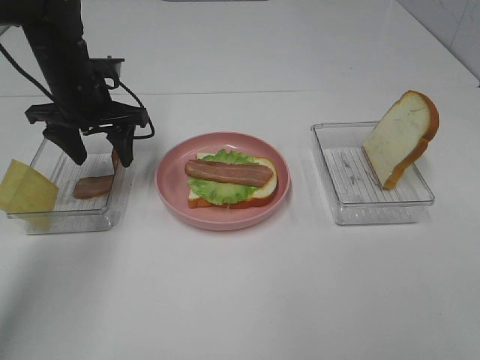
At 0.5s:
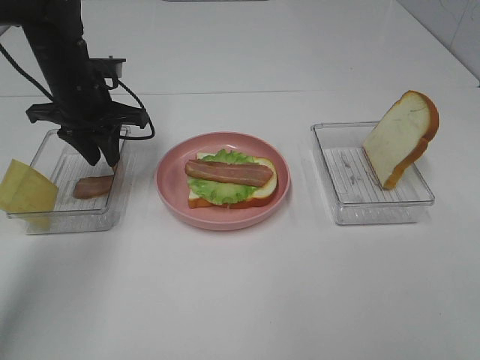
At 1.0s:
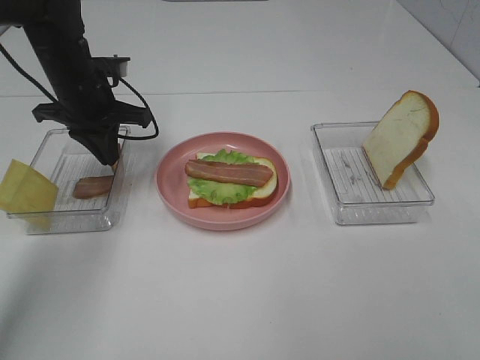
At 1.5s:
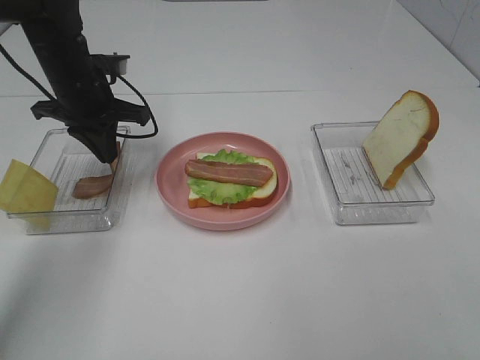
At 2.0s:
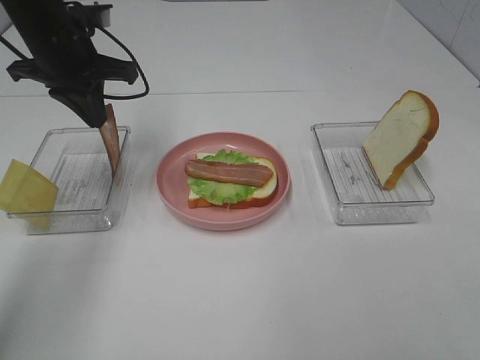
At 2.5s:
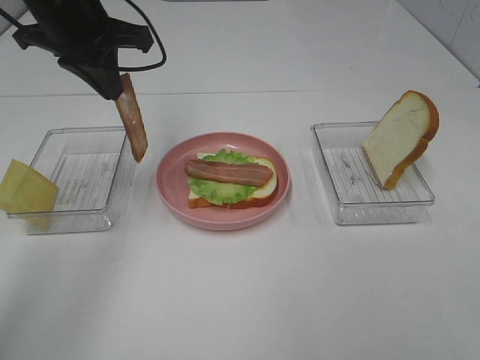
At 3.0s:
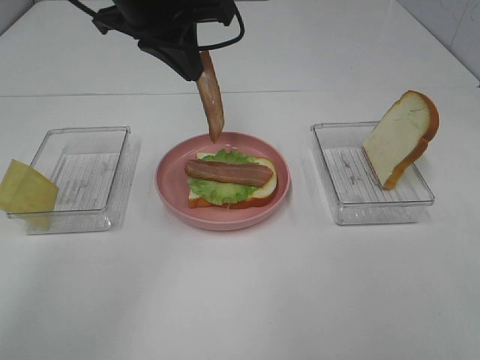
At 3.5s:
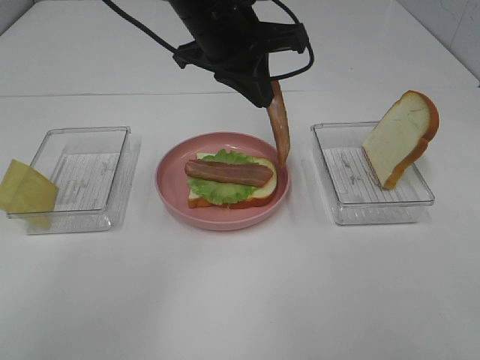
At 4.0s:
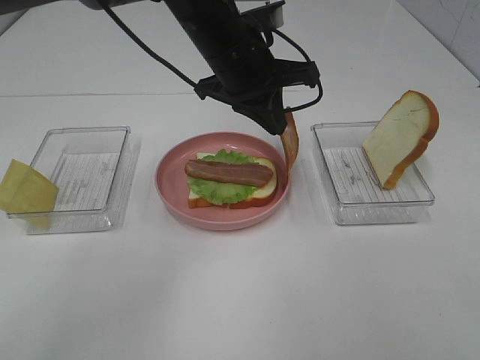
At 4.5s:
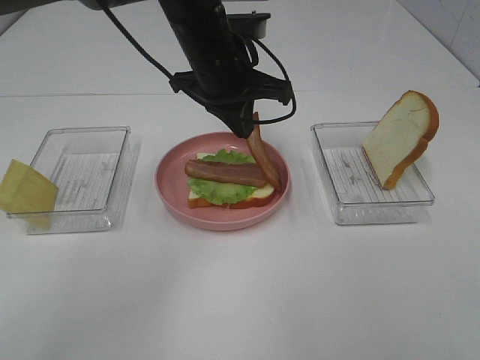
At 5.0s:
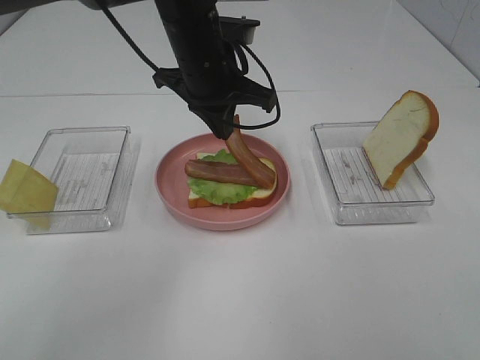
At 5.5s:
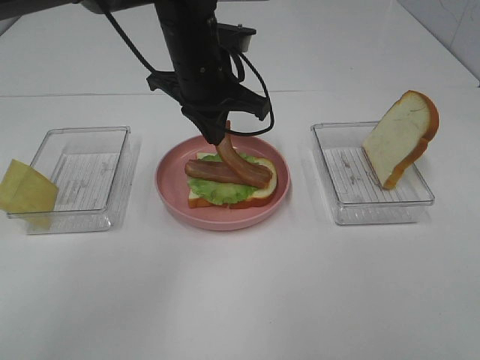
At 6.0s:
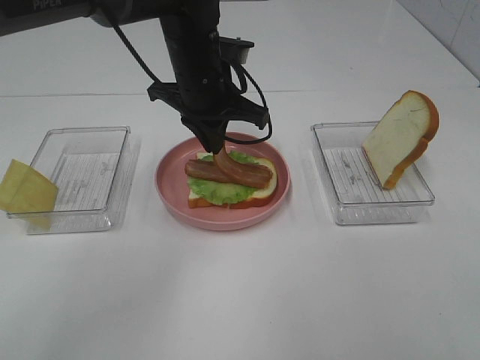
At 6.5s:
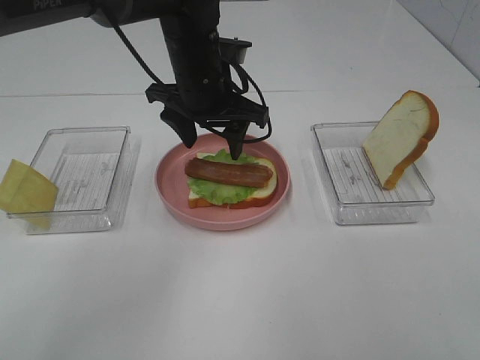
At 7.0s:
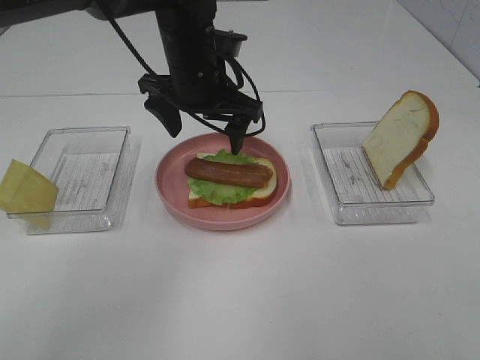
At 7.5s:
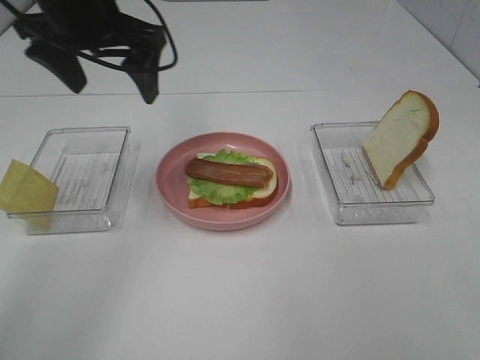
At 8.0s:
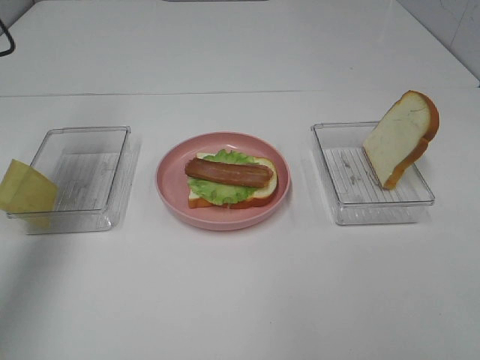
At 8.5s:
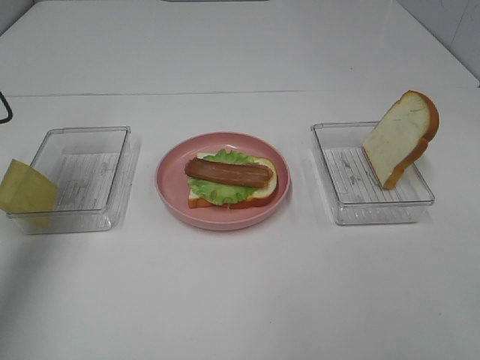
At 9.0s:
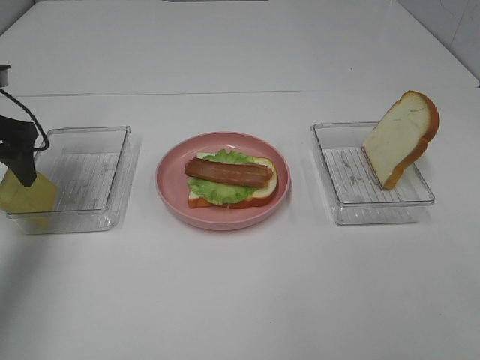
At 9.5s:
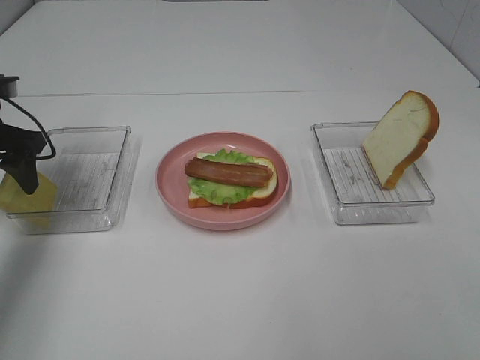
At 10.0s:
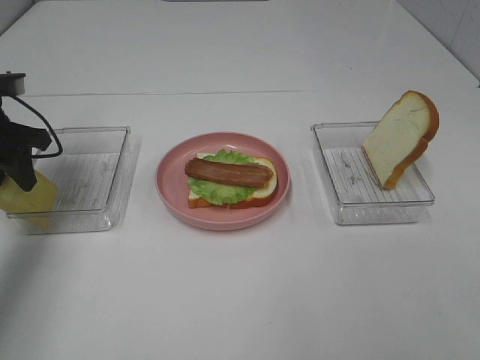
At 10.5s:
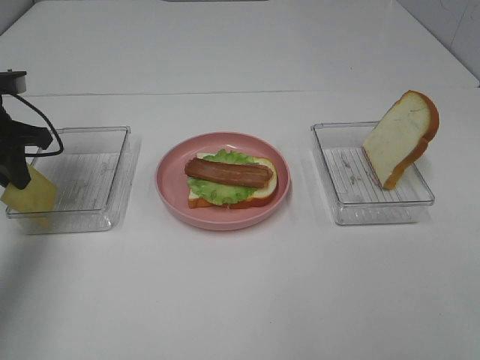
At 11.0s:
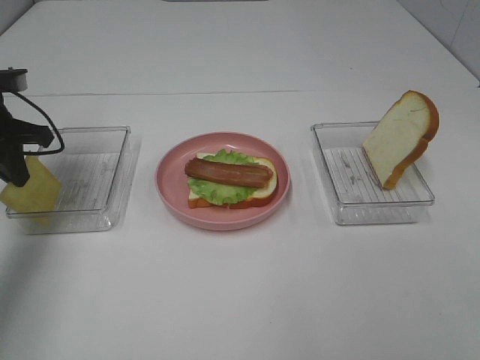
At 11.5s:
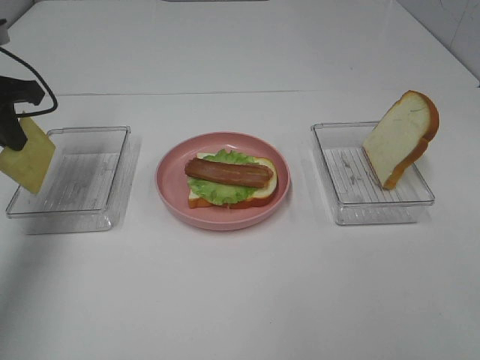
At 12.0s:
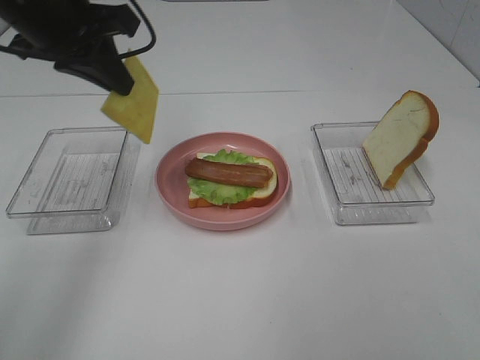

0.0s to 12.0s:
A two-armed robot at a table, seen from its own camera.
Task of the whole recording: Make sandwiches.
Step, 1.5s to 6.0s: Left hand:place bacon on bacon.
Step, 6.5s to 10.5s: Left hand:grab the cheese slice.
0.0s to 2.0s: The left gripper travels upward by about 5 cm, and closes.
2.0s to 4.0s: The left gripper shifts approximately 20 cm to the right.
6.0s to 8.0s: The left gripper is displaced to the left and upward by approximately 30 cm, and opens up.
8.0s to 10.0s: The left gripper shifts about 15 cm downward, and closes.
10.0s to 12.0s: The left gripper travels to the right and upward by approximately 20 cm, and closes.

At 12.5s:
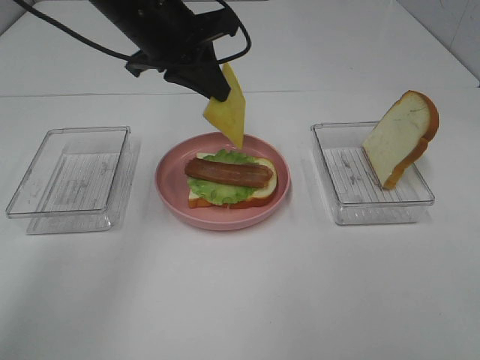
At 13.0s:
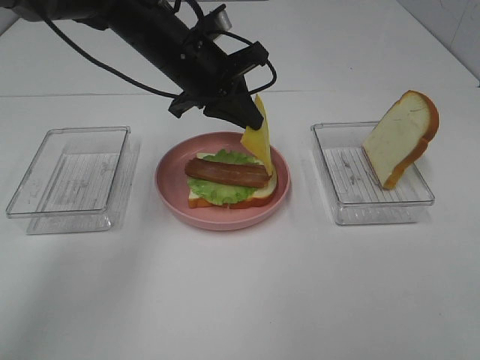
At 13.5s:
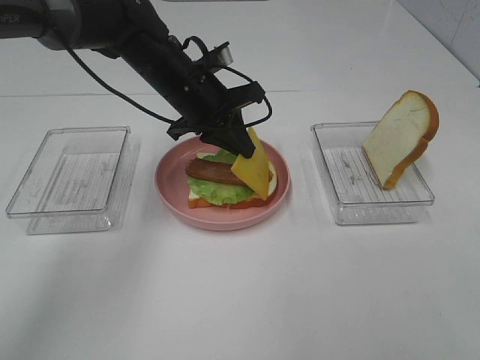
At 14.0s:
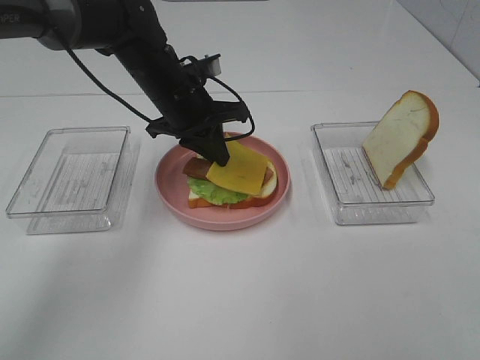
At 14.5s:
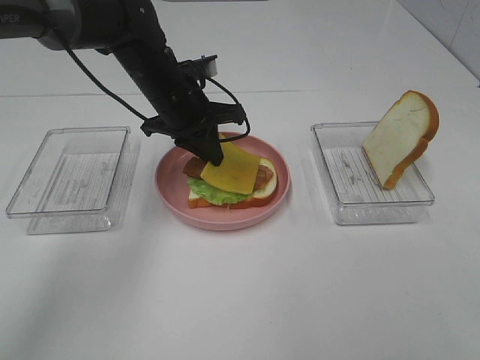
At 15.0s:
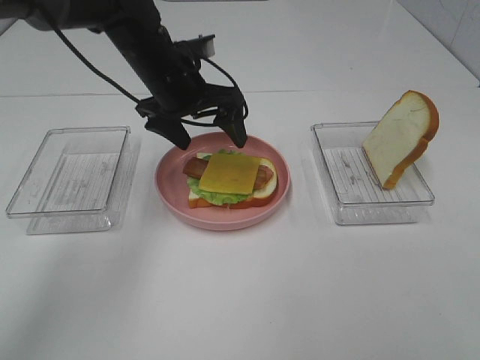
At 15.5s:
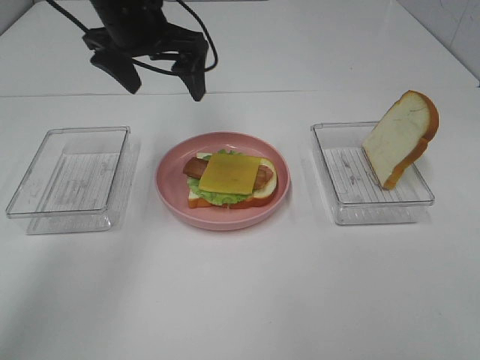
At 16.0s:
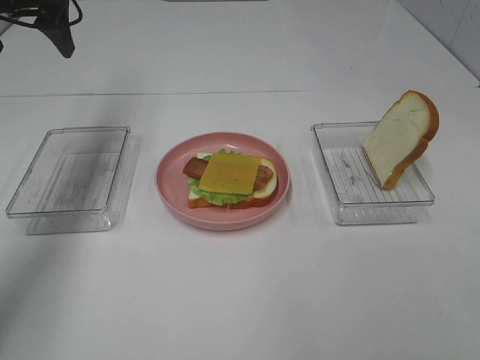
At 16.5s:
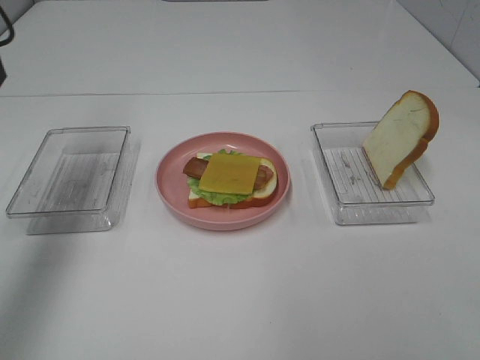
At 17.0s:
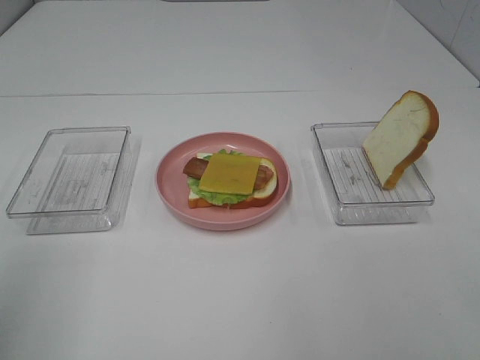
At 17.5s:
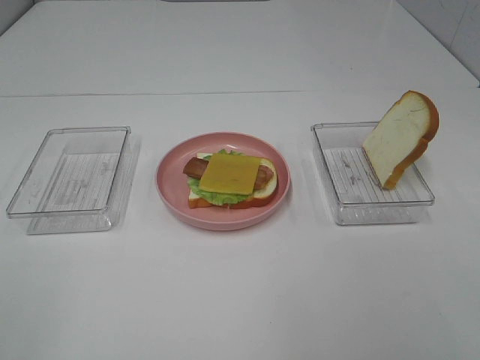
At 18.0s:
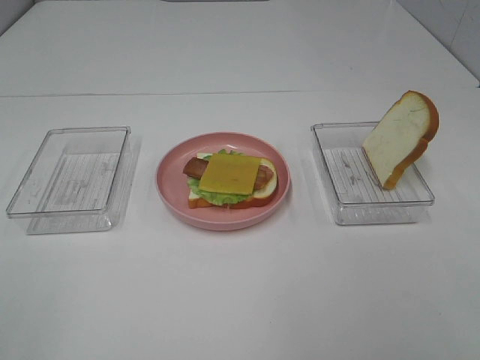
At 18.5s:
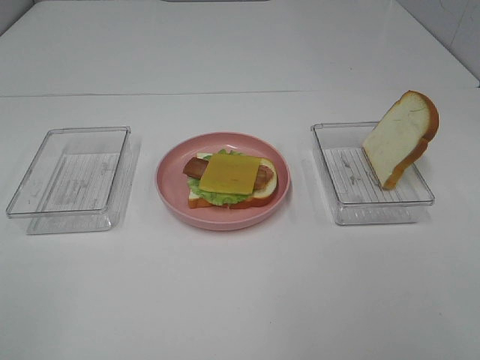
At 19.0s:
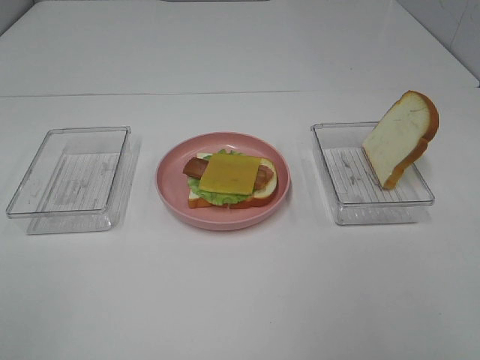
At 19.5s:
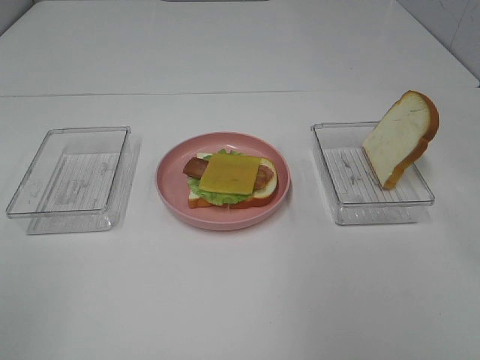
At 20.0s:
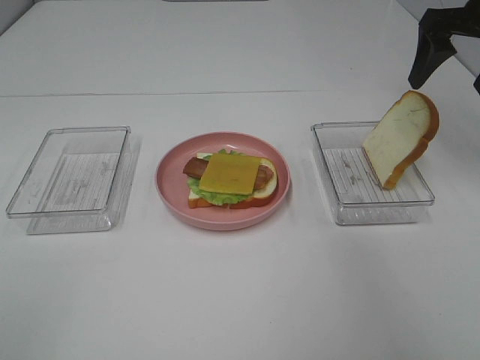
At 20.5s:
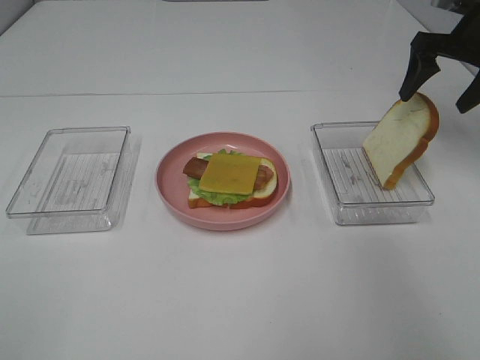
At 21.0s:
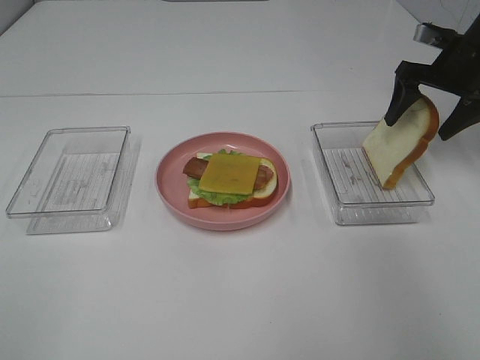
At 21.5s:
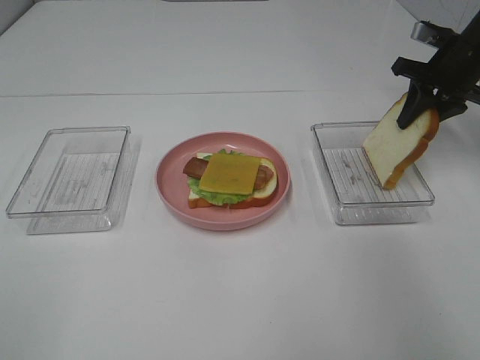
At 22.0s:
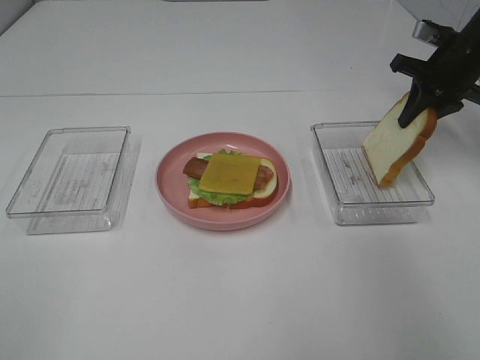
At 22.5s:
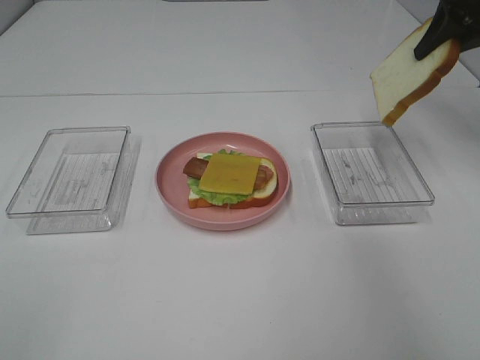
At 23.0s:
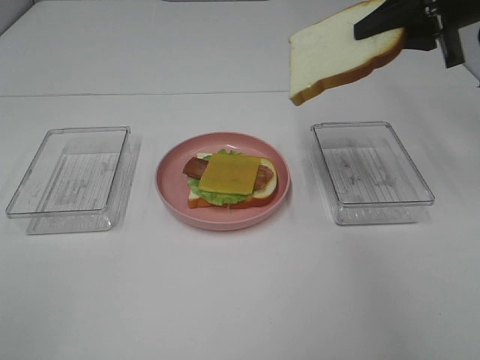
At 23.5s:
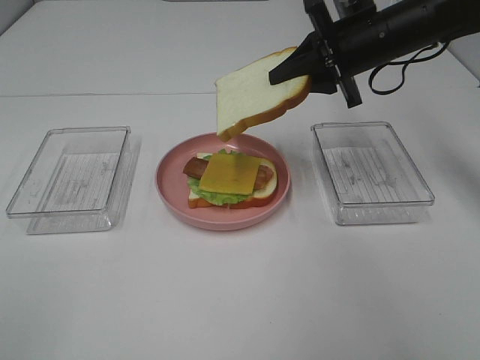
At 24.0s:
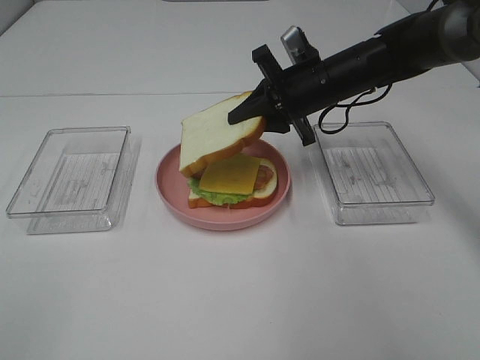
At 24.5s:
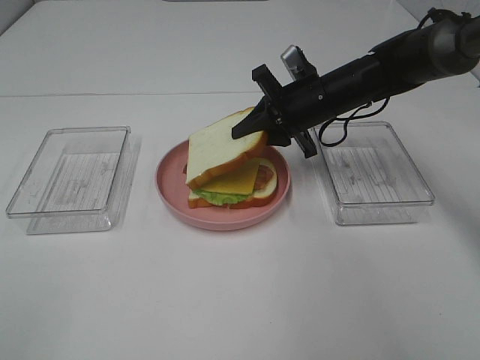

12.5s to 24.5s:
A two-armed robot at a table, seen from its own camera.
Task of the whole recording: Make sandwiches.
Step, 12.5s to 14.5s: Left hand:place the cheese slice on top of the bacon.
Step, 15.0s to 21.5s: Right hand:grab the bread slice.
12.5s to 14.5s: The left gripper travels downward by roughly 10 cm.
14.5s to 16.5s: The left gripper moves to the left, upward and backward, roughly 30 cm, and opens its fingers.
16.5s to 18.5s: The left gripper goes about 30 cm backward.
18.5s to 20.5s: The right gripper travels forward by some 50 cm.
20.5s to 22.5s: The right gripper moves upward, about 5 cm, and closes its fingers.
22.5s to 24.5s: The right gripper goes roughly 25 cm to the left and downward.

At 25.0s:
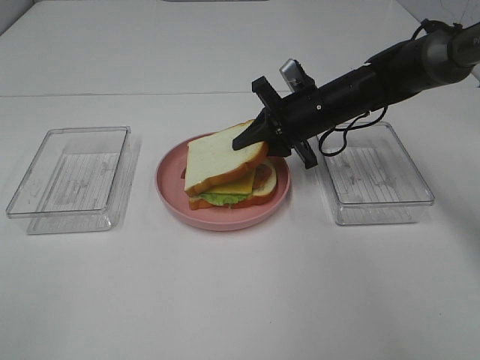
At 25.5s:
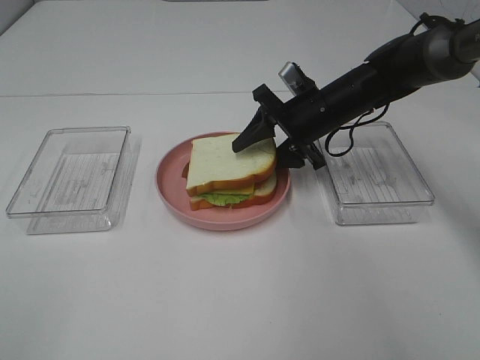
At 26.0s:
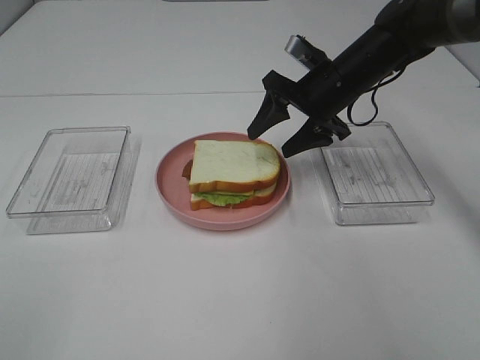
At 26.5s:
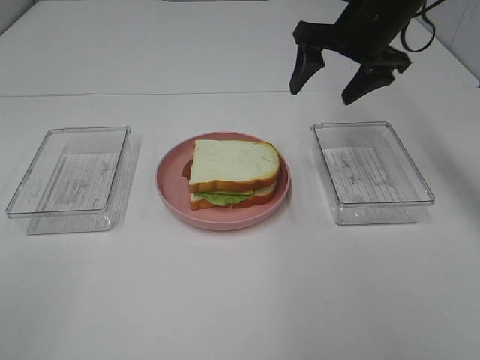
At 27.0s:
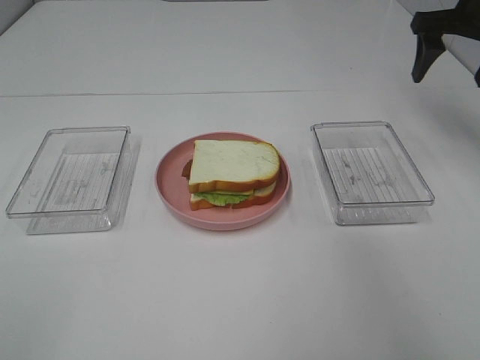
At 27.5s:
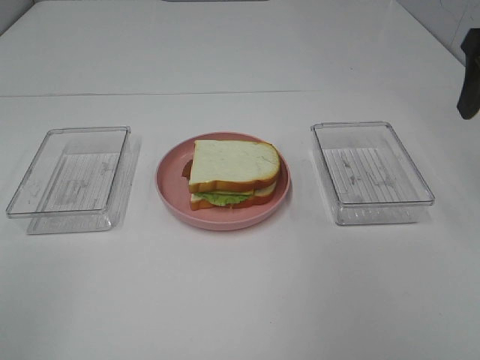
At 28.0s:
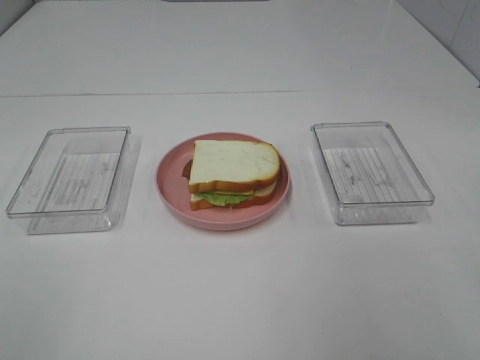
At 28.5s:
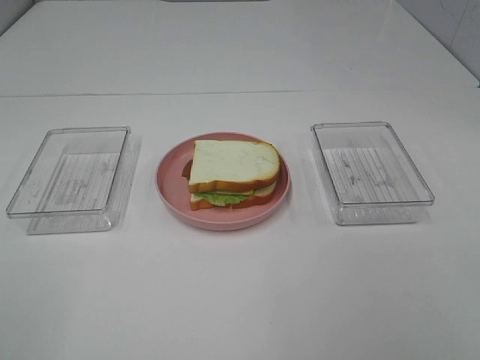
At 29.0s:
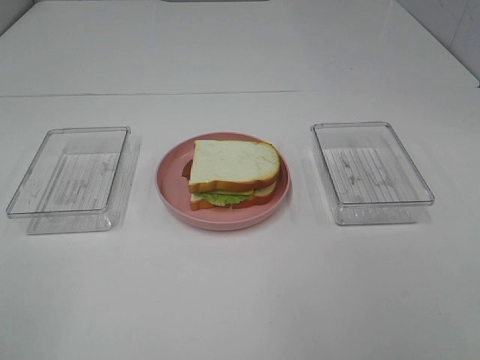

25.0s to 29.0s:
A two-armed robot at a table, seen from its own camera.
Task of the whole recording: Make sandwiches.
25.0s to 27.0s: The right gripper goes some 25 cm to the right and upward, and opens.
27.0s to 29.0s: The right gripper heads backward, covering about 40 cm.
